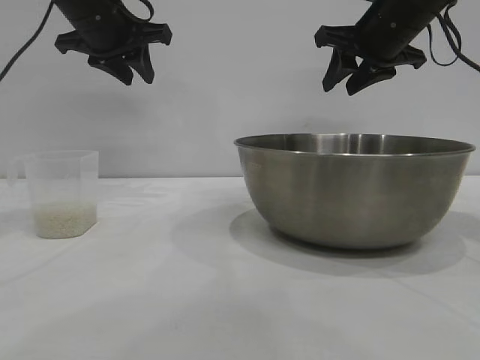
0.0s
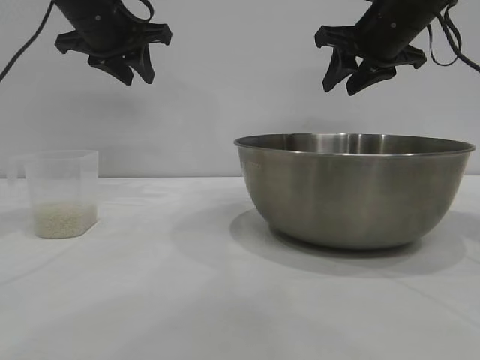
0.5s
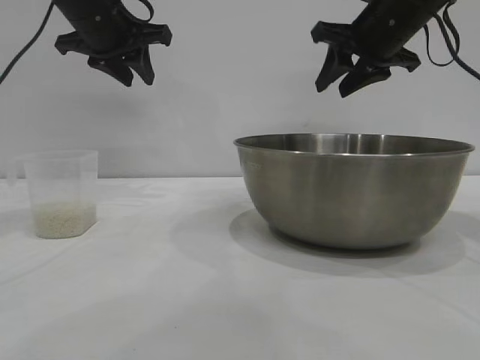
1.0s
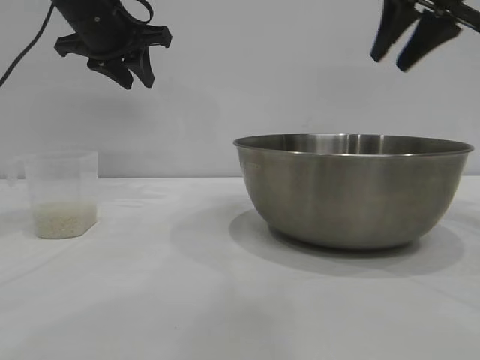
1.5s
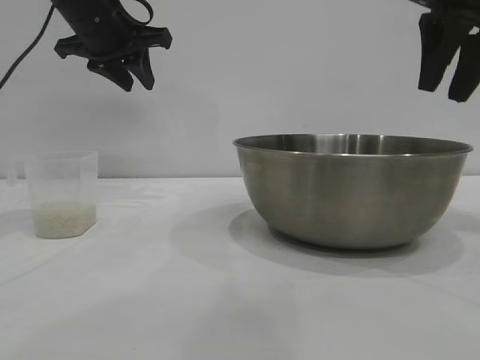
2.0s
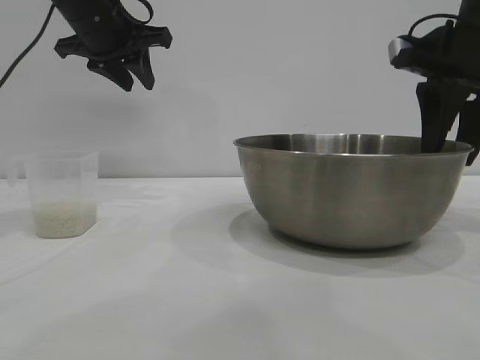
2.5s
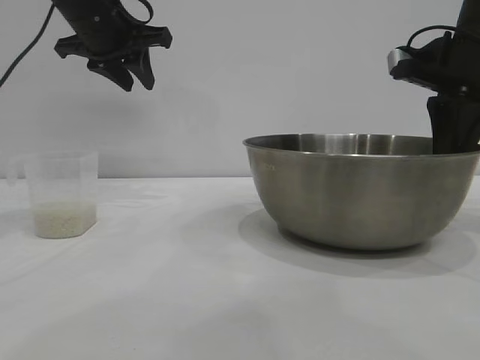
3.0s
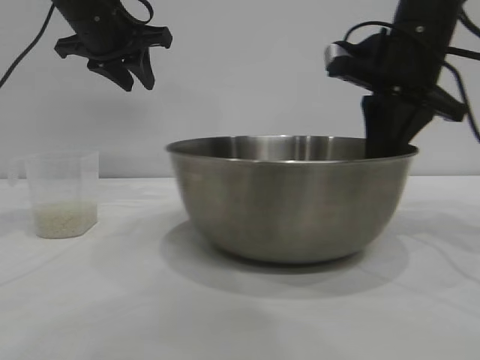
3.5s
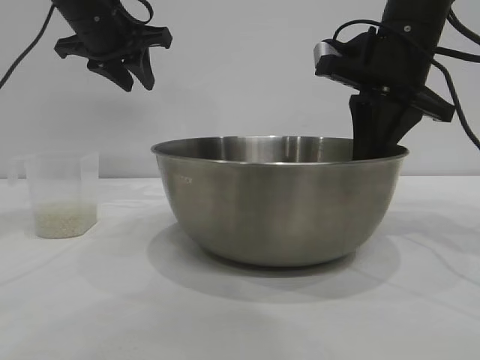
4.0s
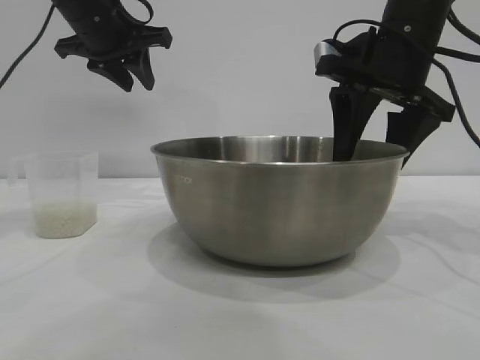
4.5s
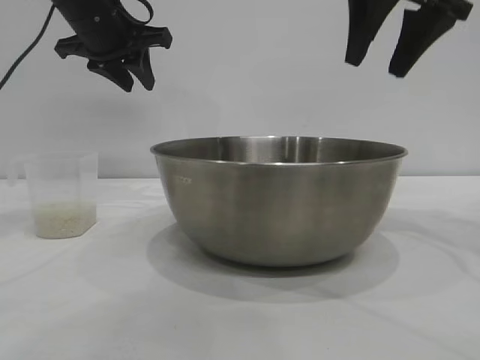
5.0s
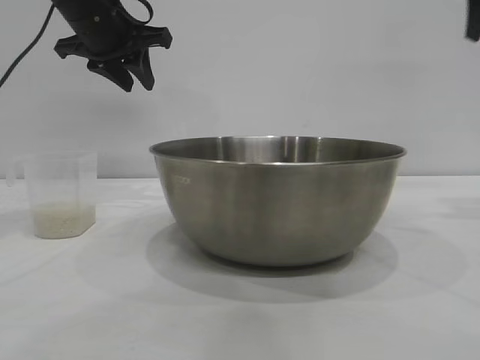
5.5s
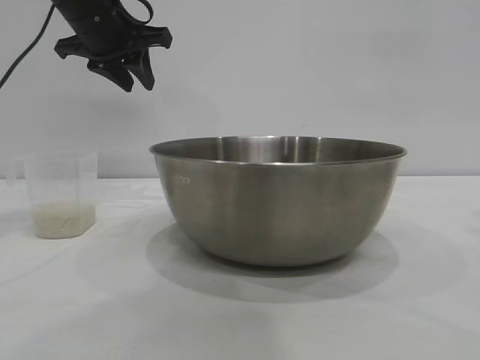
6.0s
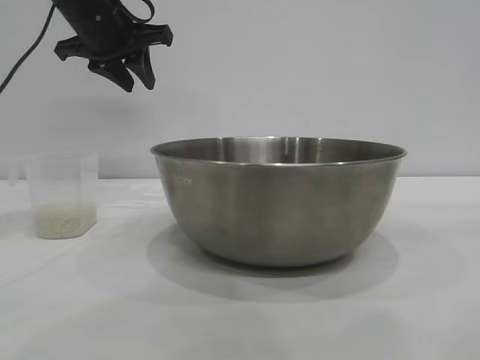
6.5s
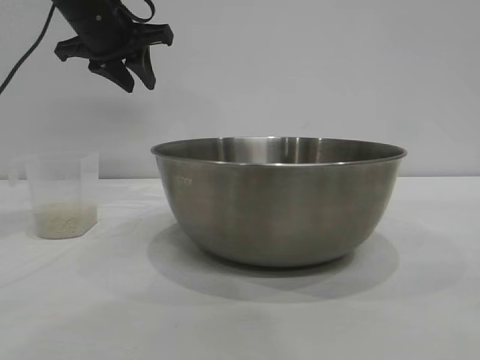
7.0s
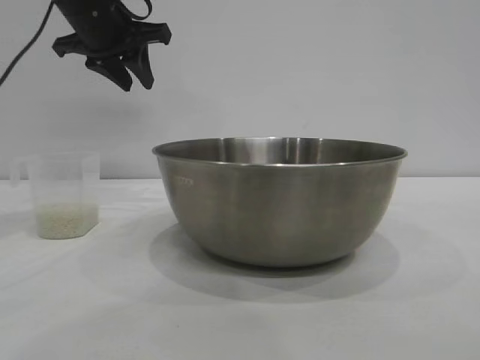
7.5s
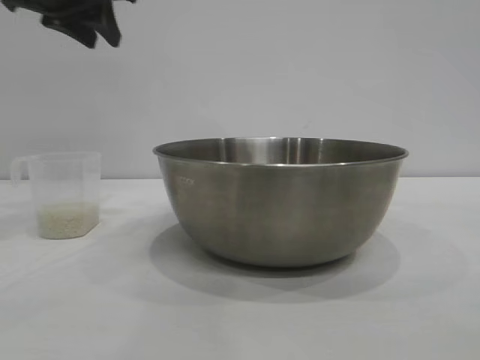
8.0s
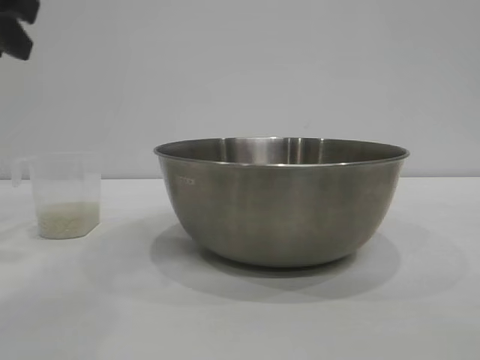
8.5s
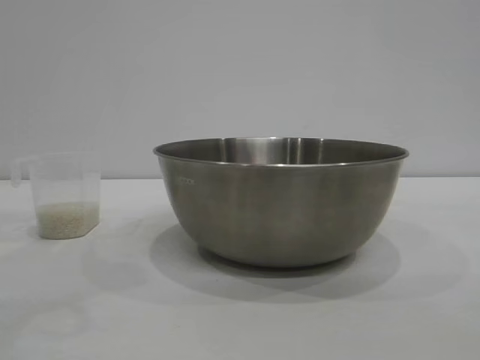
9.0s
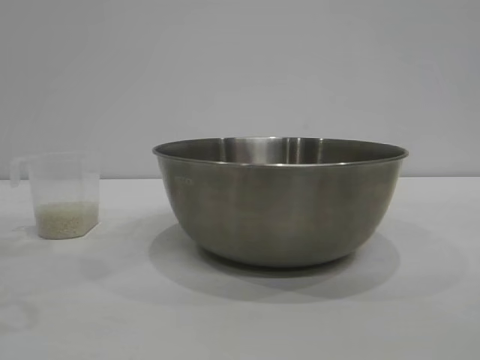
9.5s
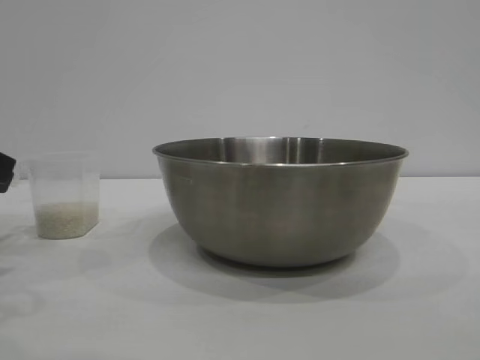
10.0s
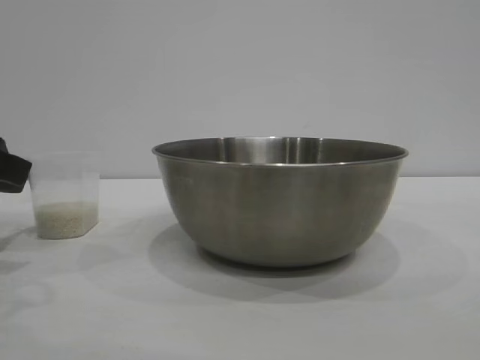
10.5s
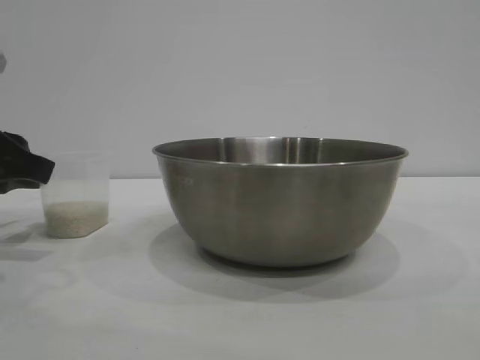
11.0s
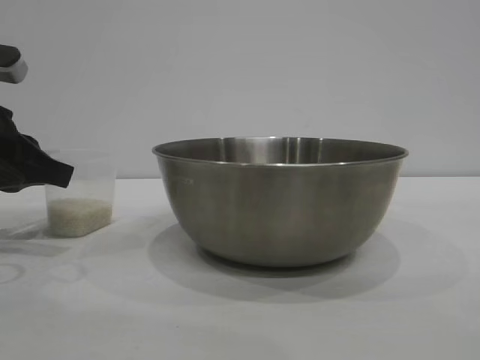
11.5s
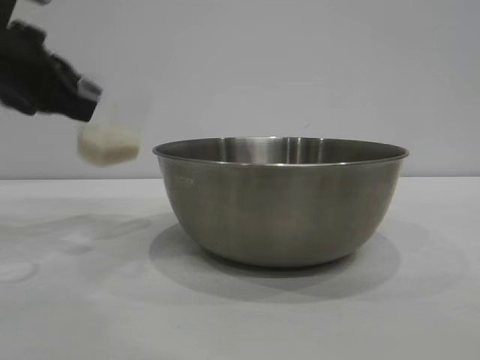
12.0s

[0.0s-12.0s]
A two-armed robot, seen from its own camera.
Task of the whole recording: the right gripper grasp the rice container and place it in the center of the table, the left gripper grasp the rice scoop and pour the rice into the rice container.
Step, 0.0s to 4.5s: Move the bowl to the center of view with the right gripper.
Step, 5.0s to 11.5s: Pick up the cup with rice in it with the left gripper.

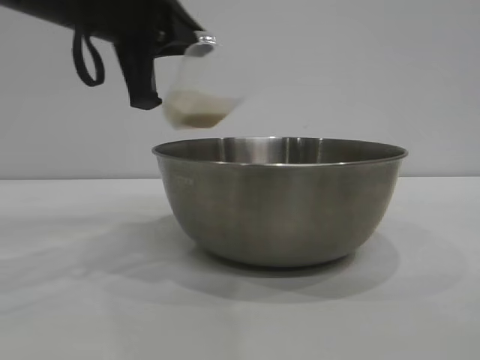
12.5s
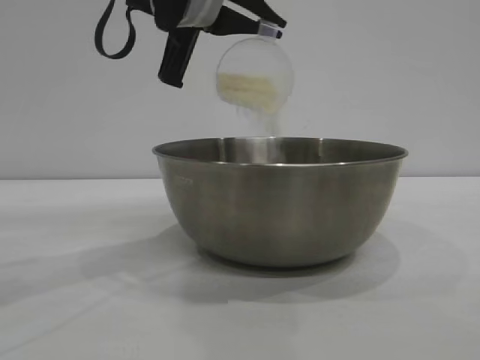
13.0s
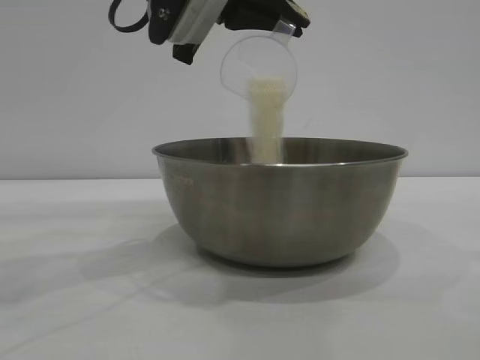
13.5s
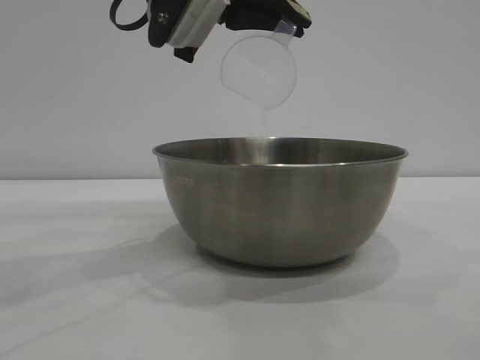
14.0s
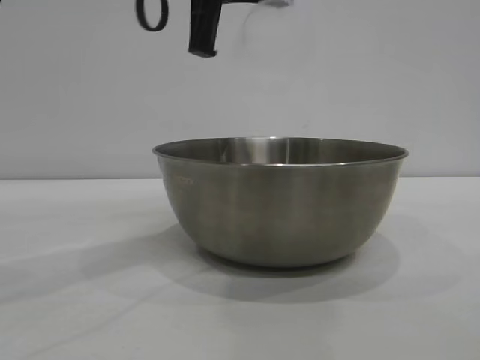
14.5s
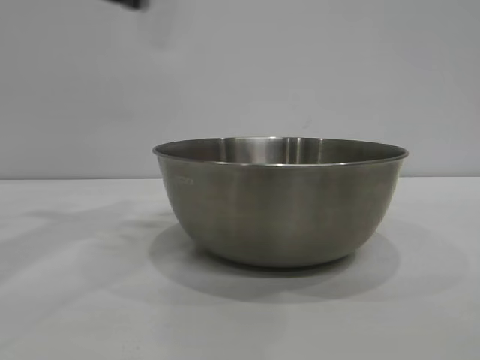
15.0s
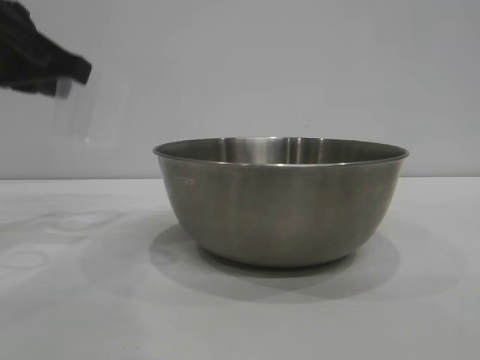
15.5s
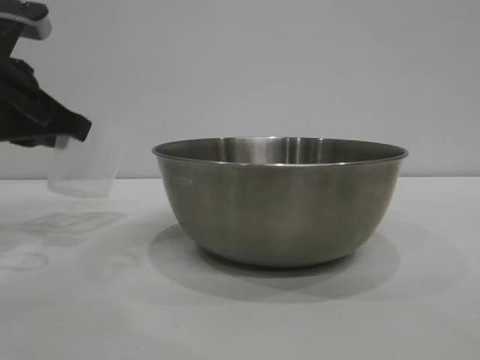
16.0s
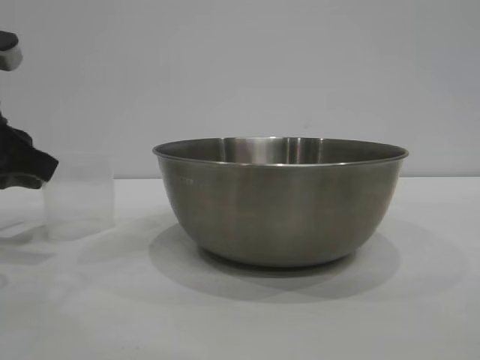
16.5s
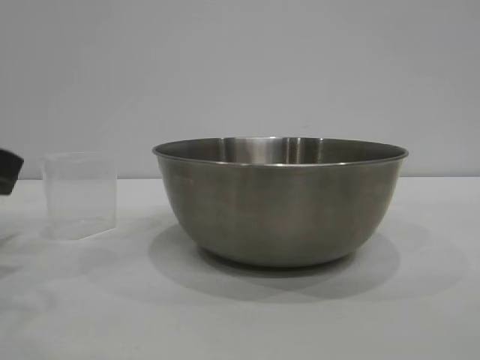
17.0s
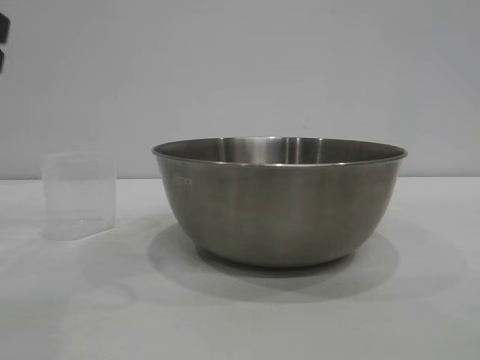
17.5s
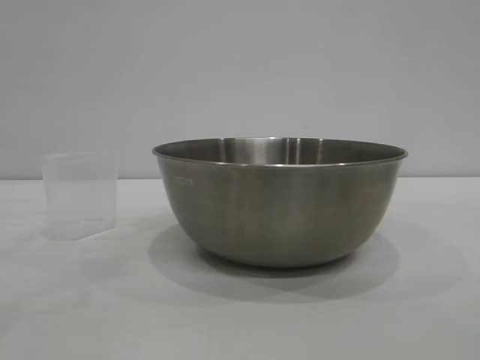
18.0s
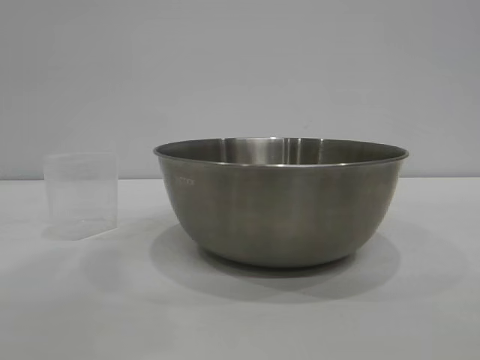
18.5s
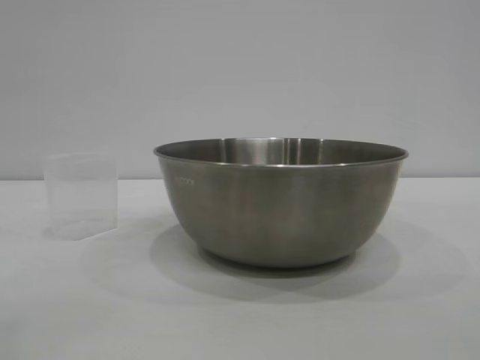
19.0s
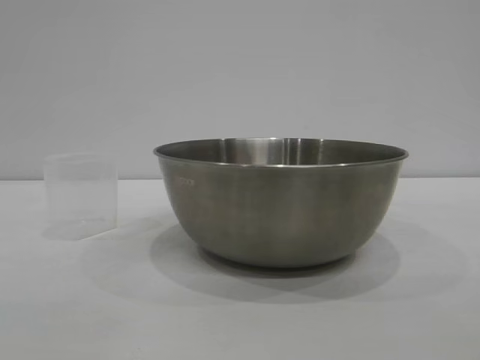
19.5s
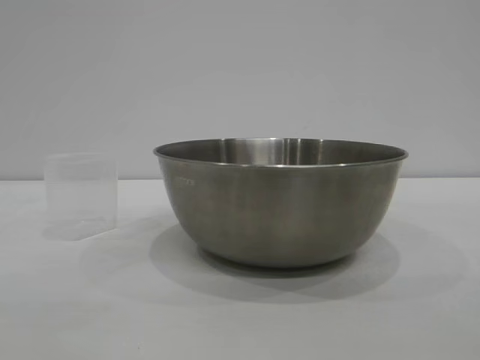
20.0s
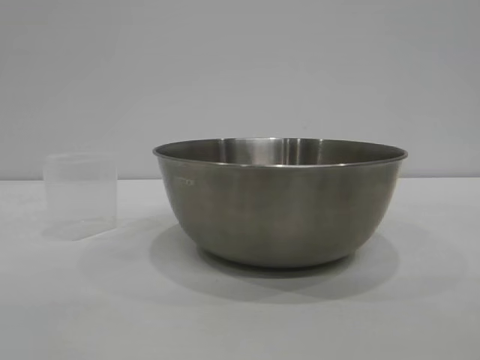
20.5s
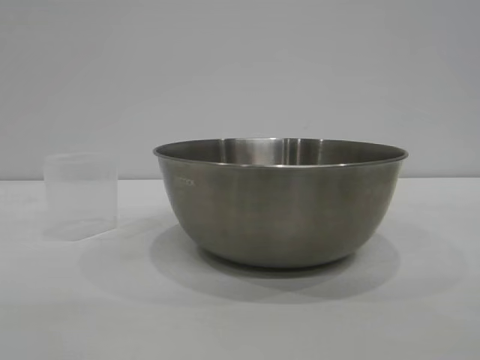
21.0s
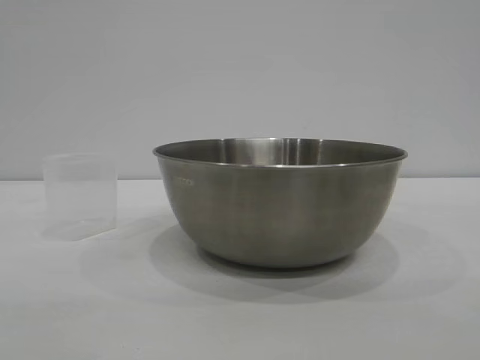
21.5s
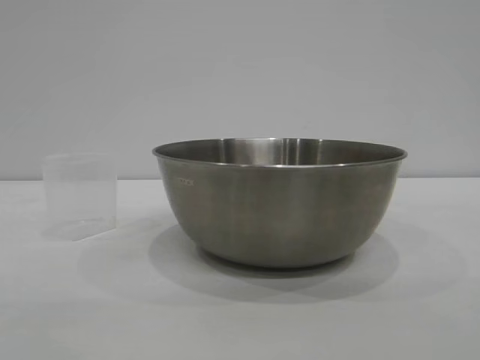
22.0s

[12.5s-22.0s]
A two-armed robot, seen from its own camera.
Task of the whole recording: the right gripper grasp the rice container and place it in the center of the table, the left gripper grasp the rice scoop and pour the rice into the rice container.
Step, 12.5s to 14.0s: Pour the rice from the cup into the bowl with the left gripper.
Step, 14.5s to 17.0s: Place the cup on the table with the left gripper.

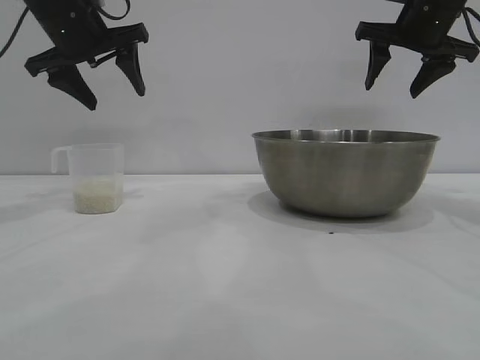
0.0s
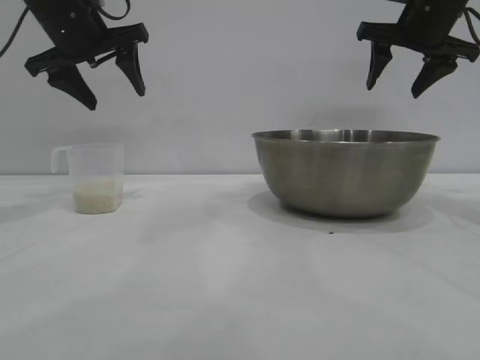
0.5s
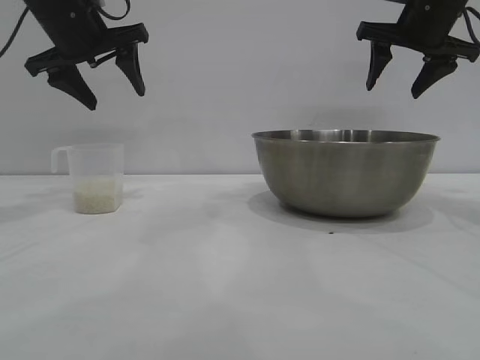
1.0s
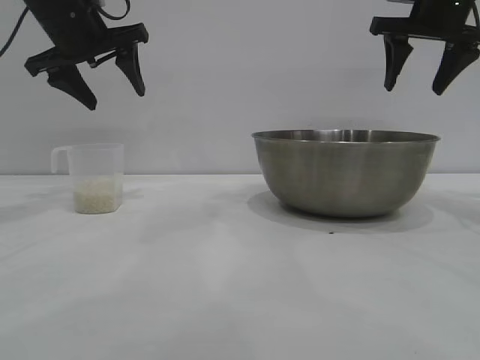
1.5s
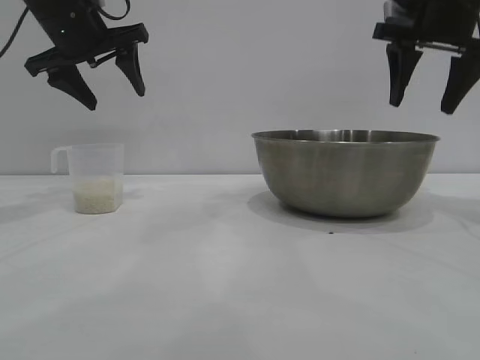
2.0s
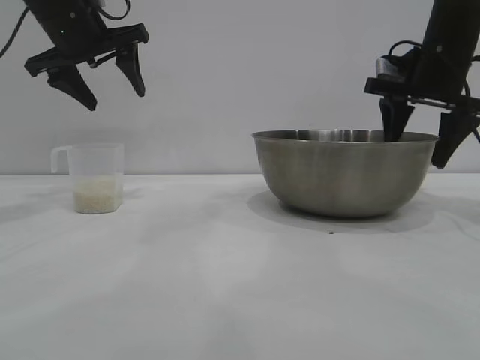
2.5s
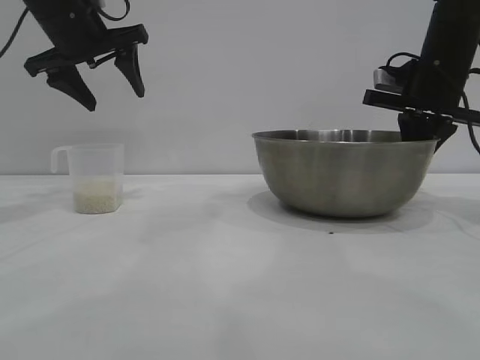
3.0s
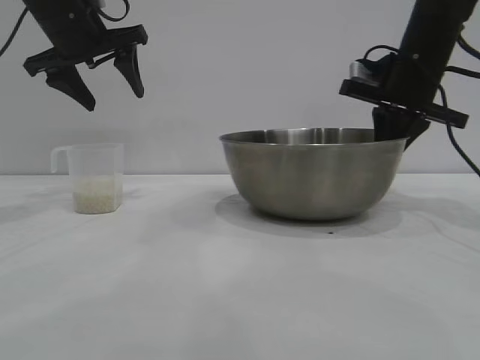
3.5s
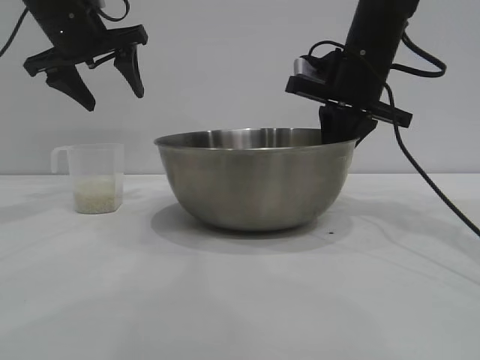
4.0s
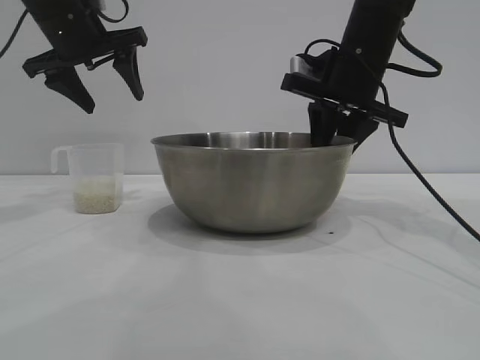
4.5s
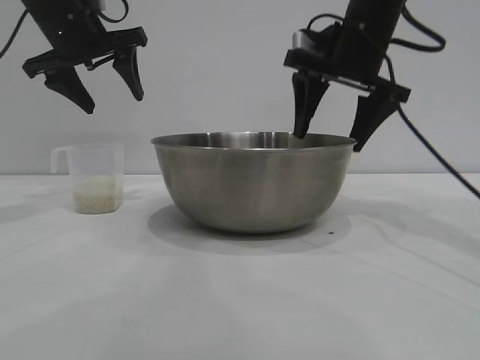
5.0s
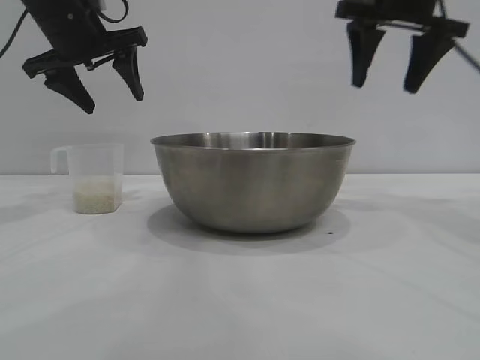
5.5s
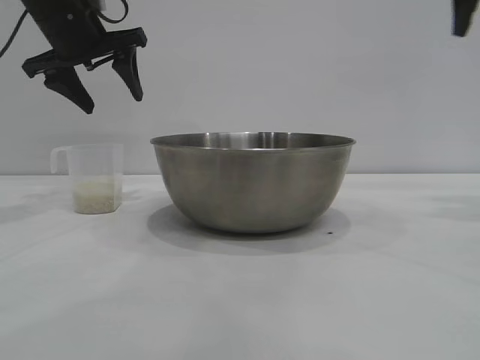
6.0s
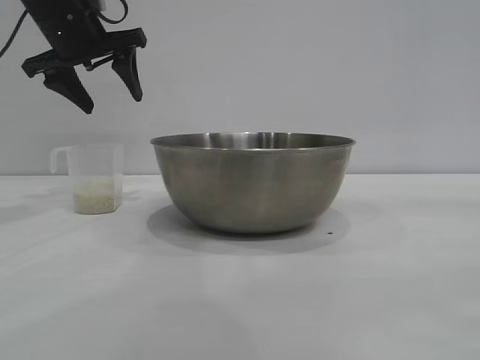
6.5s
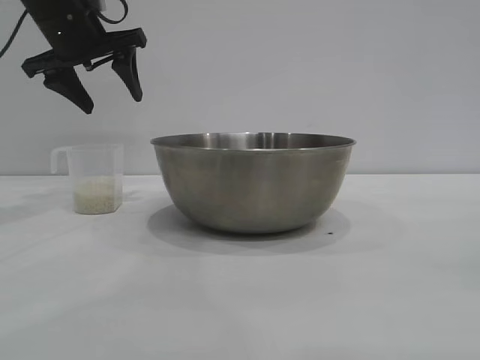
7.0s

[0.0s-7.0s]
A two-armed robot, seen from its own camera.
Task of the whole recording: the right gripper grasp the rice container and place it in the center of the table, the left gripper grasp the rice scoop and pour the rice into the rice container.
Step, 0.0s to 5.0s: Move the bowl to the center of view with the right gripper.
